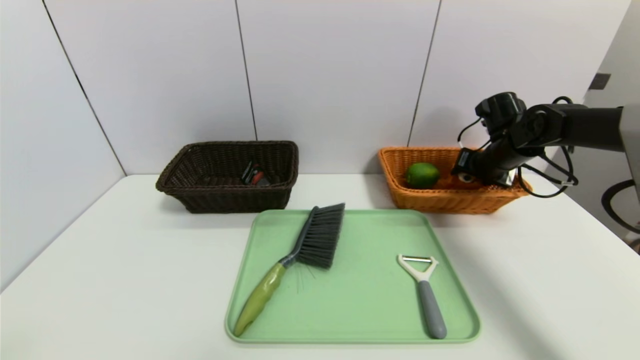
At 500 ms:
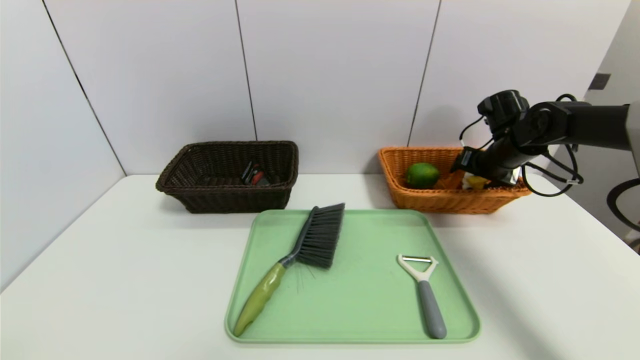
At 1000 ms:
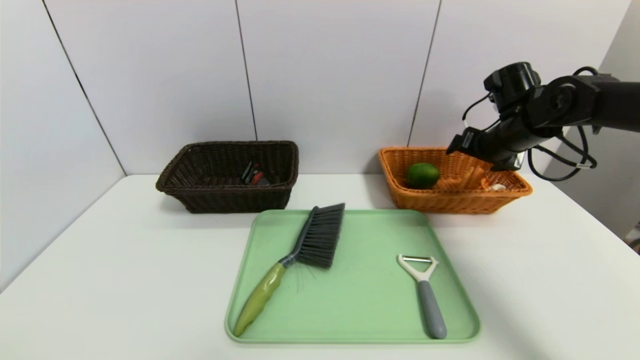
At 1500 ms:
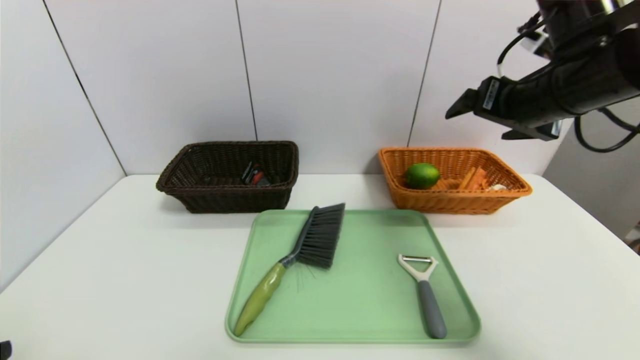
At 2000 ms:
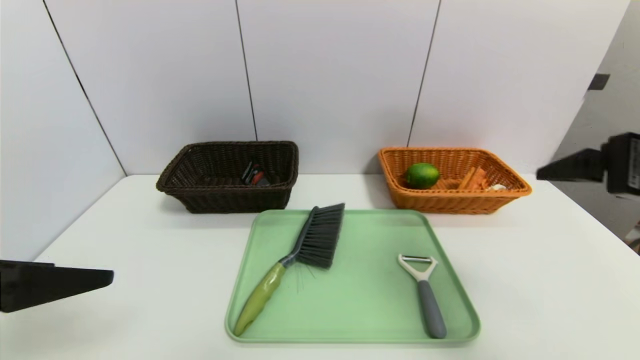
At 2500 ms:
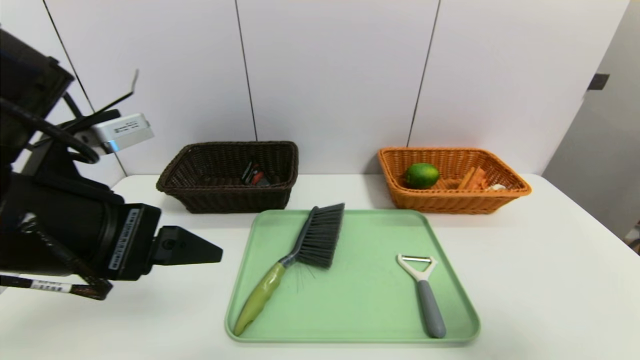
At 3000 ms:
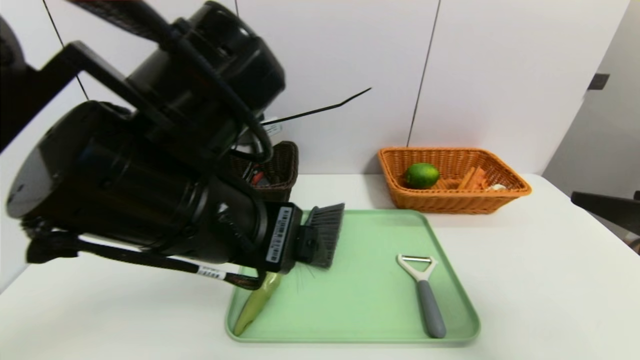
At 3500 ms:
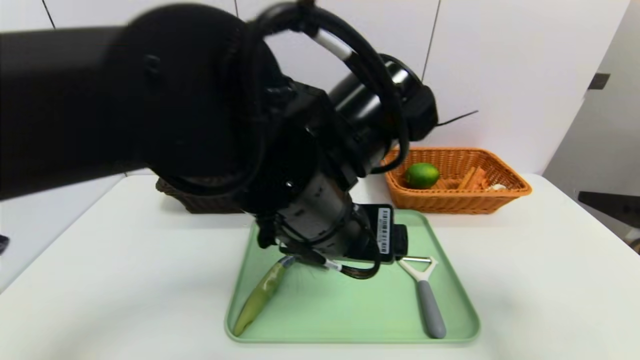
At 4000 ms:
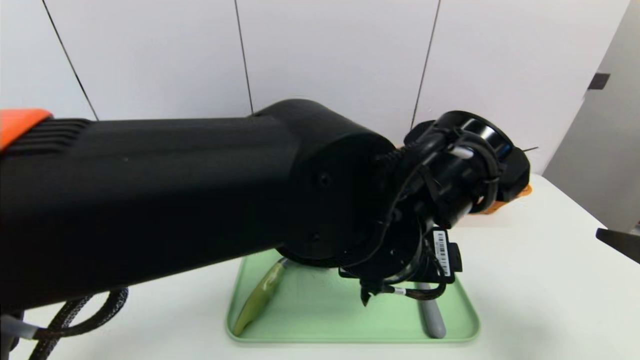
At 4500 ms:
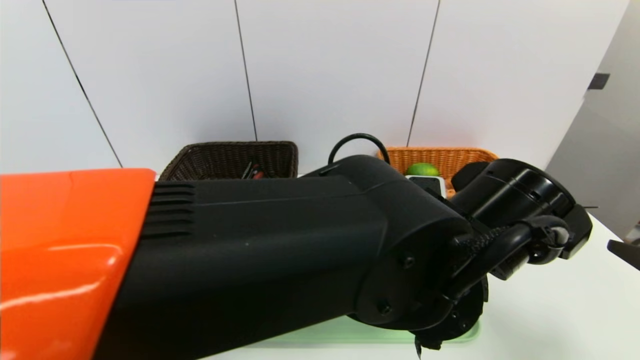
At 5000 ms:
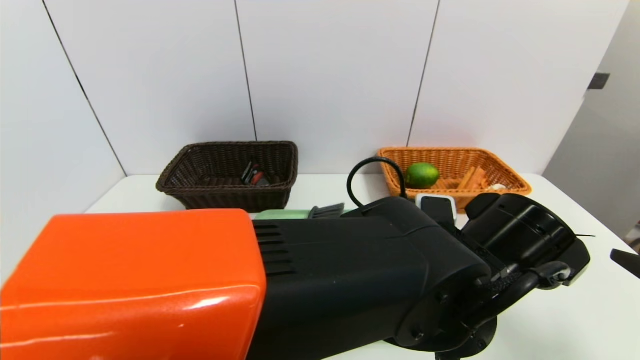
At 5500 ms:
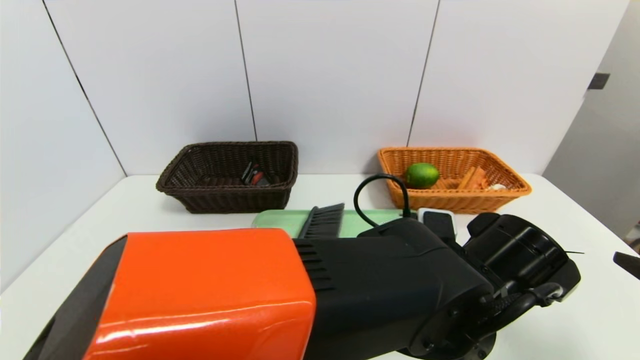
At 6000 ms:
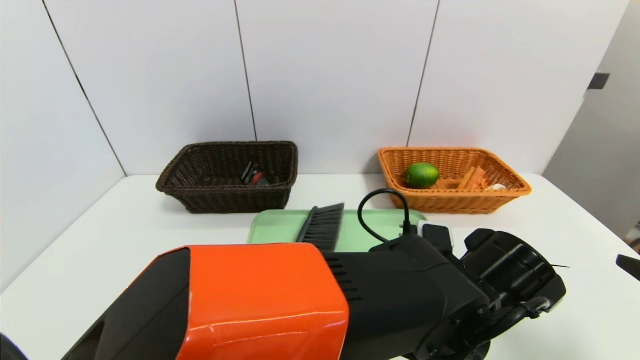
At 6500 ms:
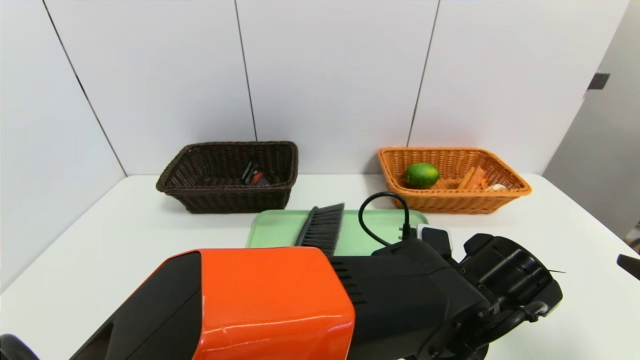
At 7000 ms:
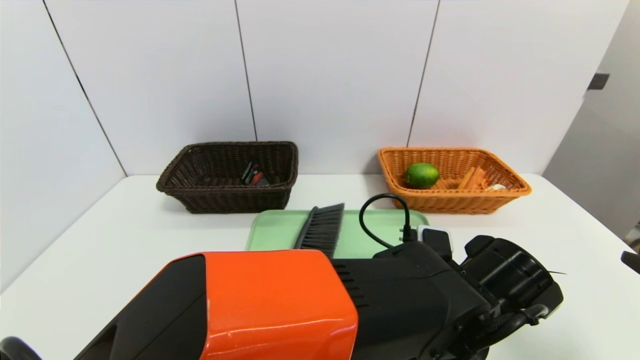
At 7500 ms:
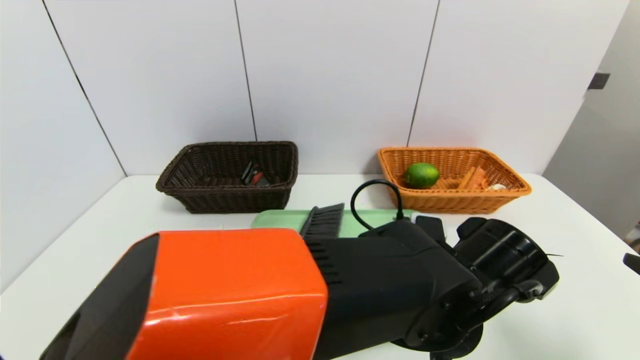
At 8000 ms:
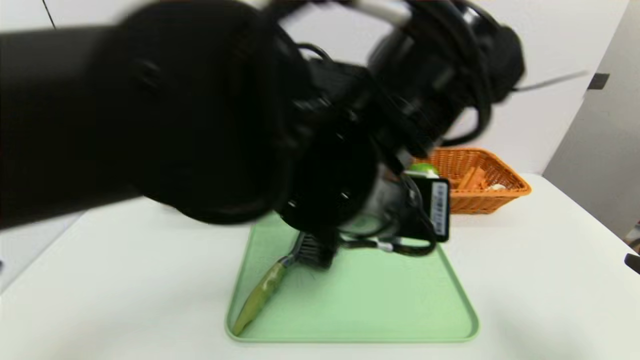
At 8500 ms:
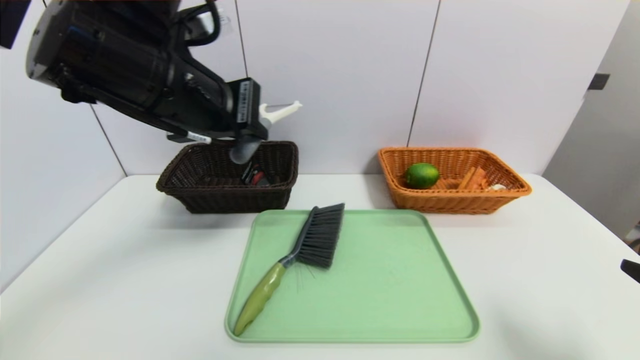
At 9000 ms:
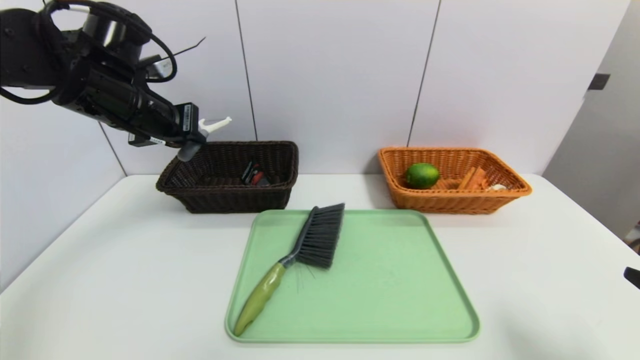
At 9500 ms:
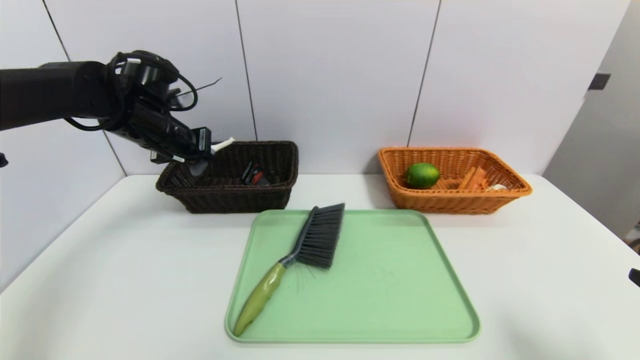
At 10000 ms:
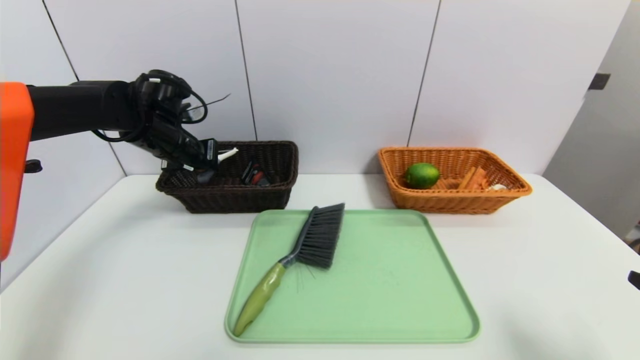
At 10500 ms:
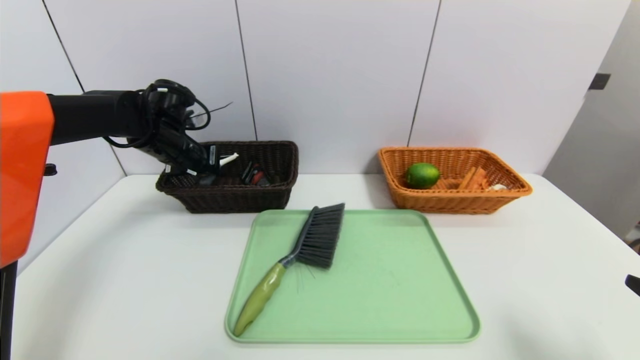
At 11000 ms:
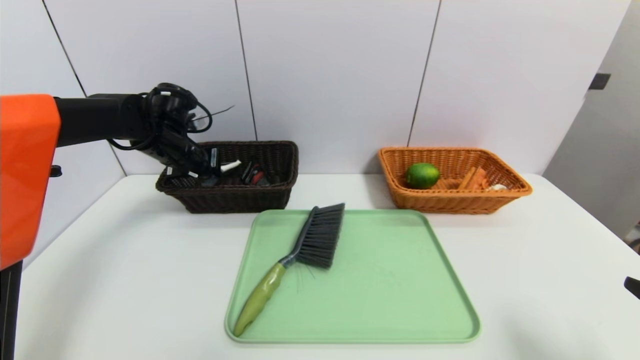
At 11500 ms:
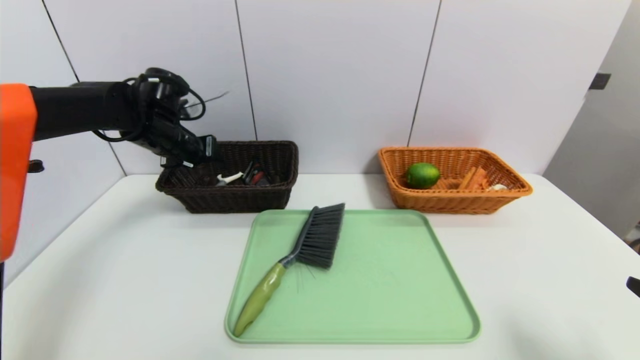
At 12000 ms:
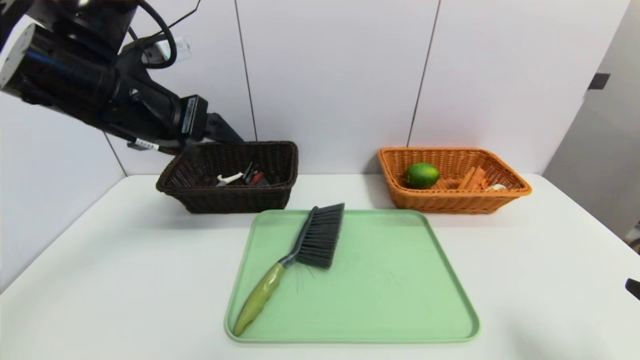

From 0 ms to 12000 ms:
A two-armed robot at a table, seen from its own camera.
Task of the whole recording: place the food in the right basket with the right gripper, and place the non food items in the left basket with the left gripper.
Step, from 1000 ms to 11500 ms: Grasp the peeler and put it in the left basket.
From 0 ms to 2000 ms: The right gripper moves backward and upward, some 30 cm, and opens. The left gripper heads forward and upward, covering some 10 cm.
From 2000 ms to 4000 ms: The right gripper shifts about 10 cm downward and backward. Meanwhile the left gripper heads to the right, covering approximately 30 cm.
From 4000 ms to 6000 ms: The left gripper goes some 15 cm downward and to the right.
From 6000 ms to 8000 ms: The left gripper shifts about 20 cm upward and to the left, and closes.
From 8000 ms to 10000 ms: The left gripper is displaced to the left and forward by some 35 cm.
From 10000 ms to 12000 ms: The left gripper is displaced backward and upward by some 20 cm, and opens its fingers.

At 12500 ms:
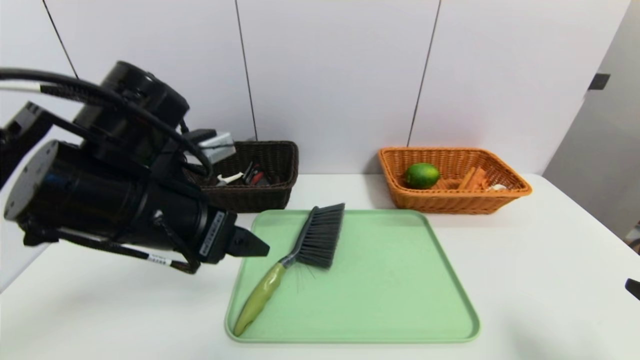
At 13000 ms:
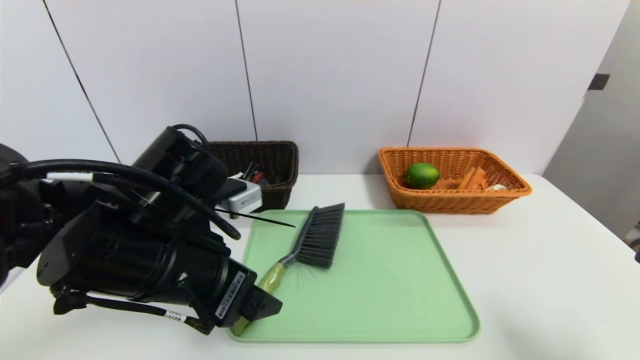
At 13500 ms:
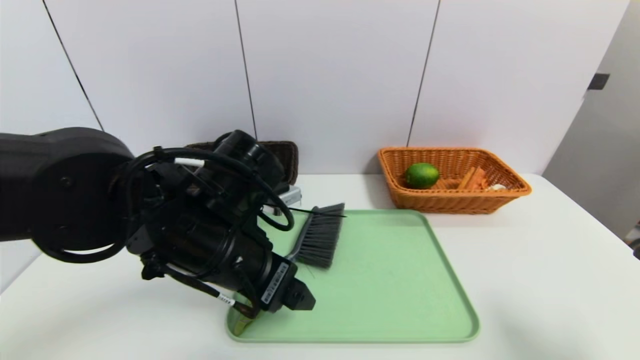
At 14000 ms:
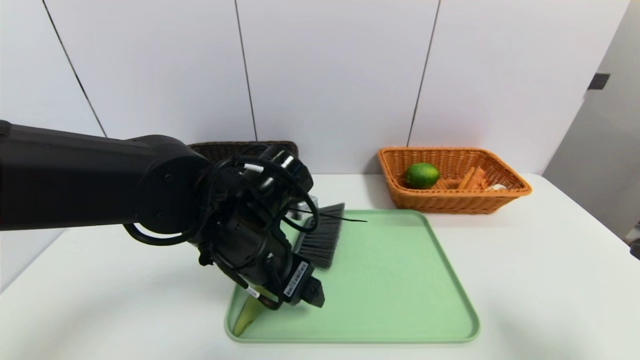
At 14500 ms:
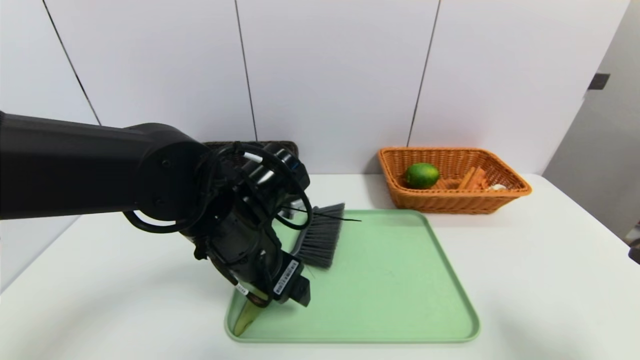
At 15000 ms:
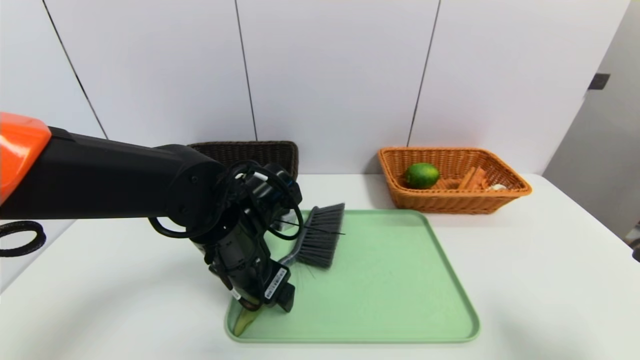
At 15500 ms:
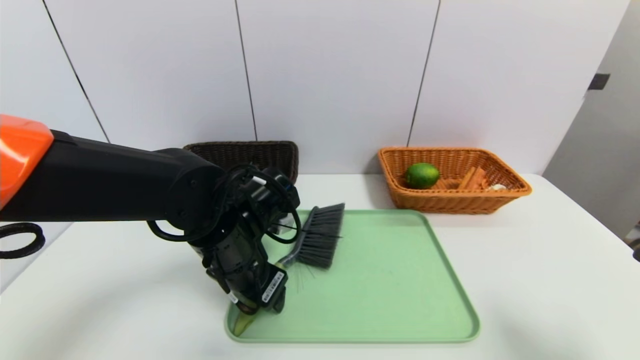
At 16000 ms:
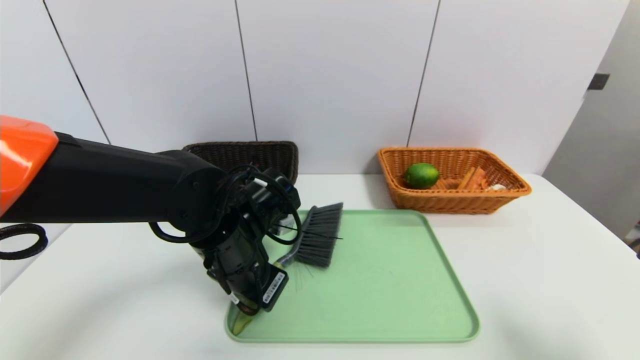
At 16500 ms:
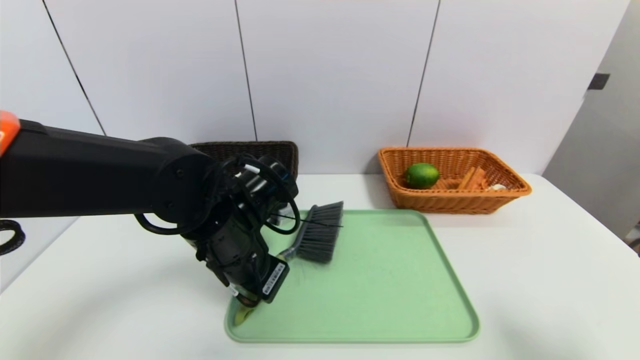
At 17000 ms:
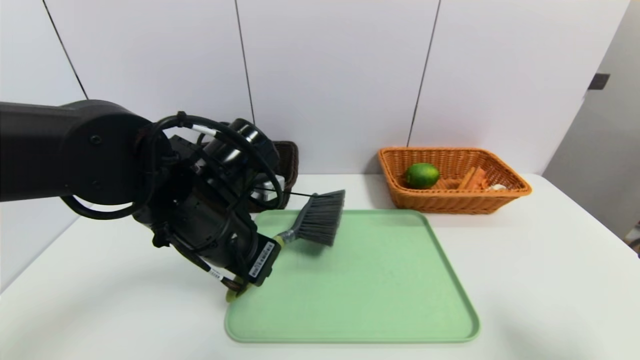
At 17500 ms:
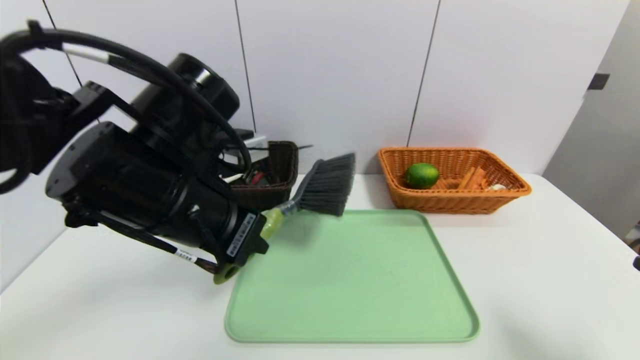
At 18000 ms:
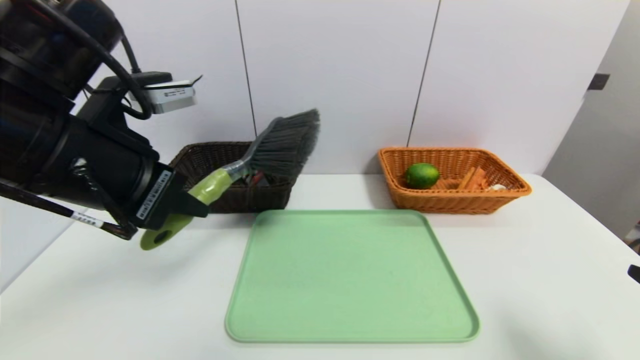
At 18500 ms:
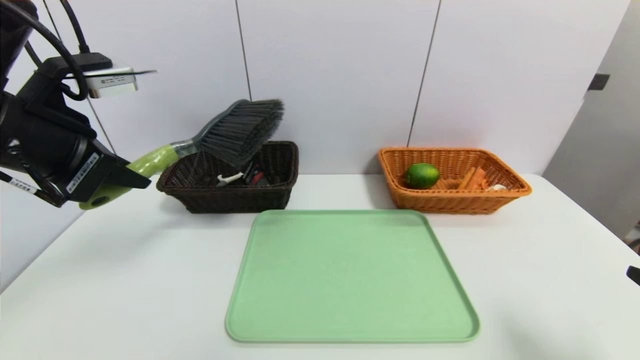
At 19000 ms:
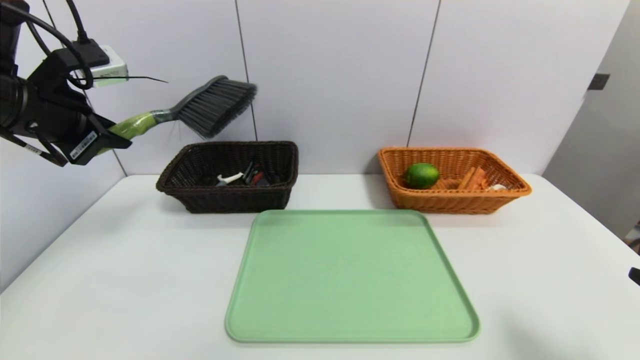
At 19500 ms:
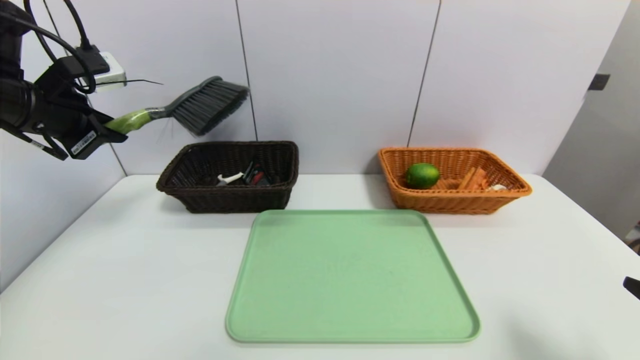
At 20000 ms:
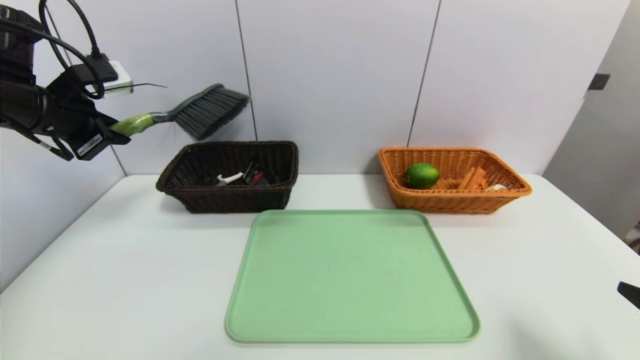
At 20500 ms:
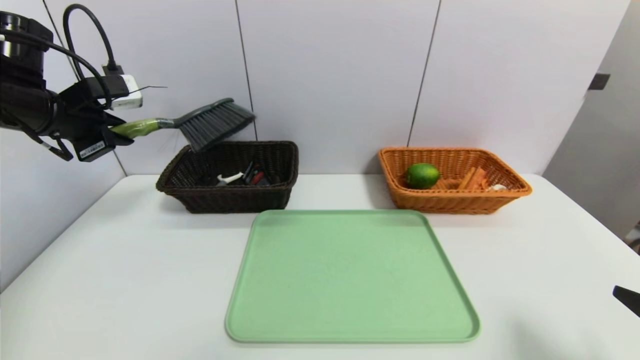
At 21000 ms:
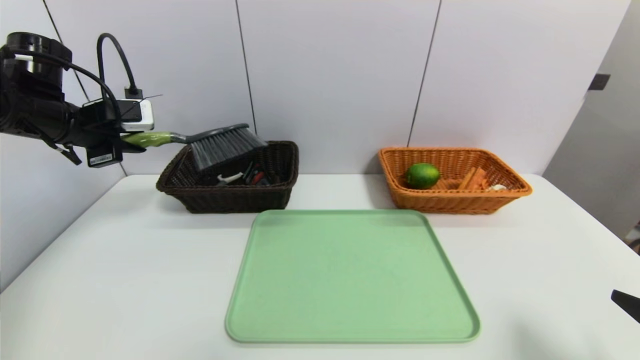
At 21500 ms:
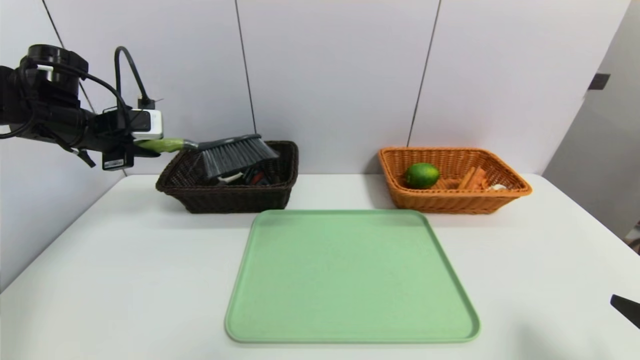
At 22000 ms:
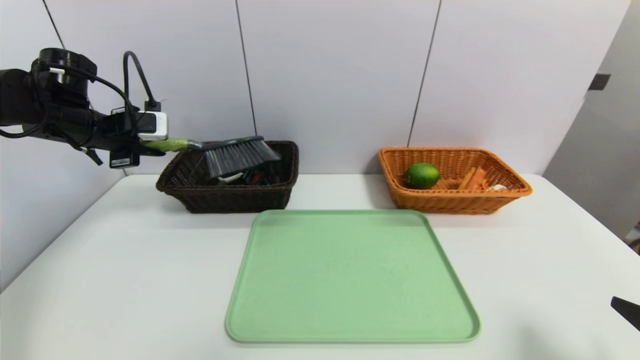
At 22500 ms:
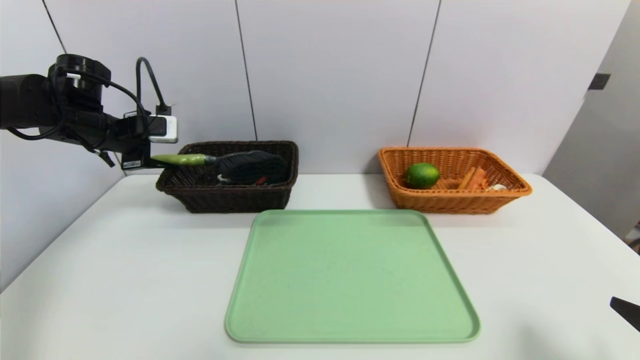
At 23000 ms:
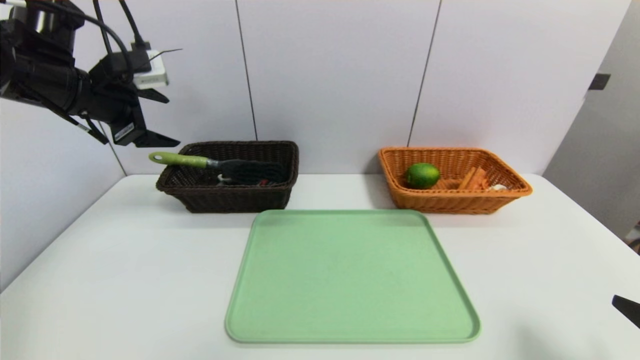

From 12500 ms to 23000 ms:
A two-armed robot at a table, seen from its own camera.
Task of the whole recording: place the food in the right basket with the right gripper, and place the non food items in the left basket with the left gripper.
Step, from 12500 ms to 22500 ms: Grasp the brush and put it in the left basket.
From 12500 ms to 14500 ms: The left gripper shifts some 10 cm to the right and downward.
From 14500 ms to 16500 ms: The left gripper closes its fingers.
From 16500 ms to 19000 ms: The left gripper moves to the left and upward, some 25 cm.
From 19000 ms to 21000 ms: The left gripper is displaced forward by some 10 cm.
From 21000 ms to 23000 ms: The left gripper ends up approximately 5 cm from where it was, and opens up.
